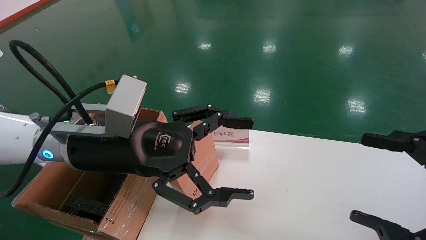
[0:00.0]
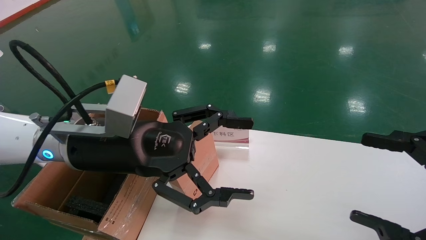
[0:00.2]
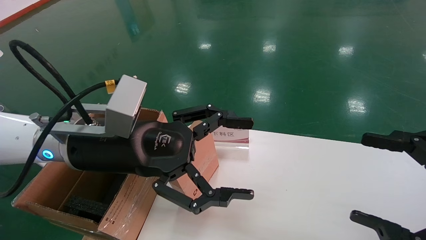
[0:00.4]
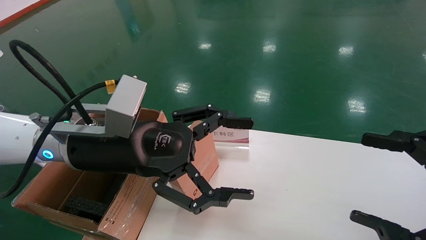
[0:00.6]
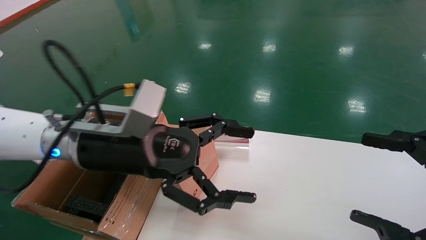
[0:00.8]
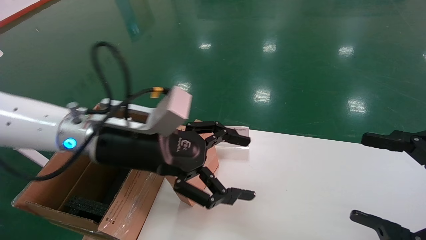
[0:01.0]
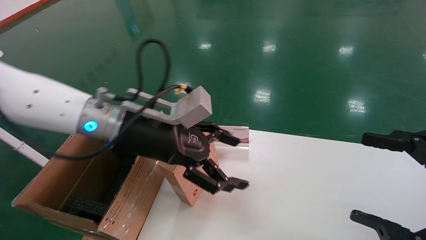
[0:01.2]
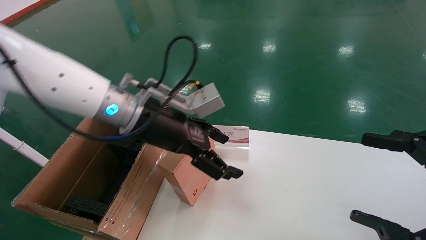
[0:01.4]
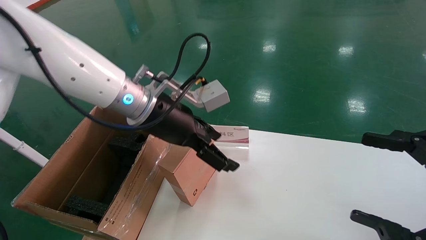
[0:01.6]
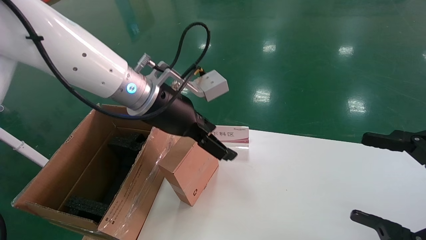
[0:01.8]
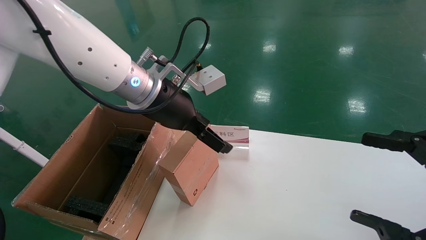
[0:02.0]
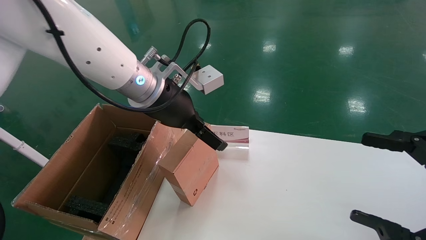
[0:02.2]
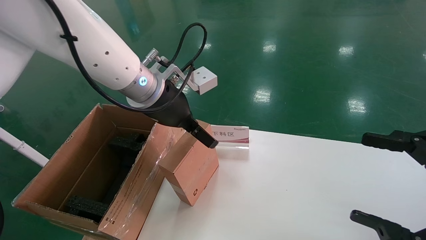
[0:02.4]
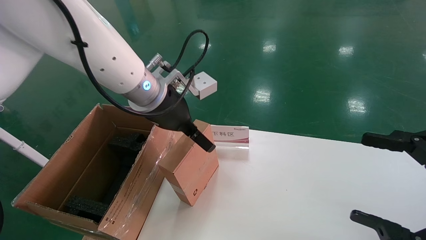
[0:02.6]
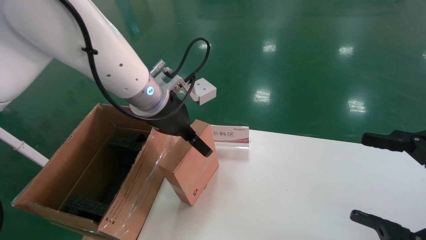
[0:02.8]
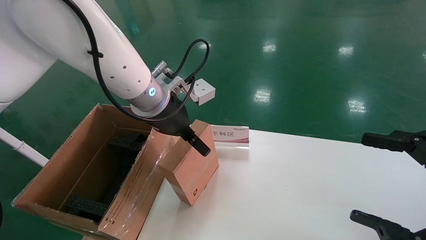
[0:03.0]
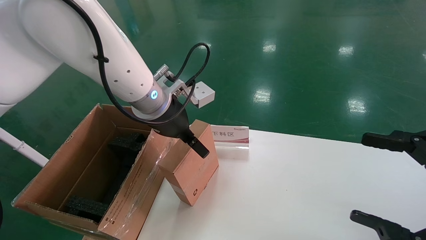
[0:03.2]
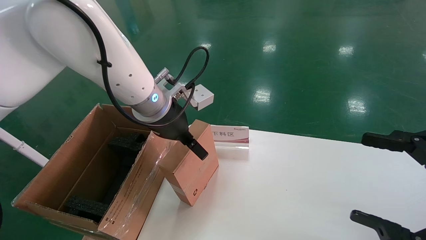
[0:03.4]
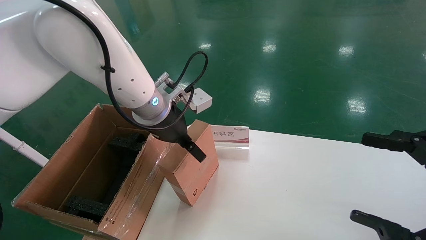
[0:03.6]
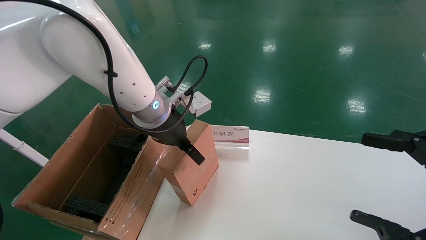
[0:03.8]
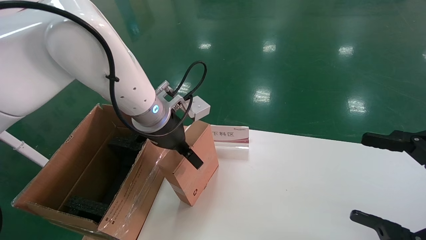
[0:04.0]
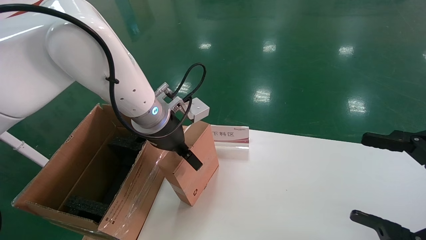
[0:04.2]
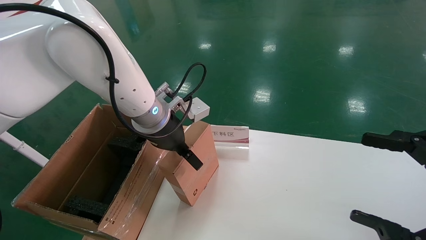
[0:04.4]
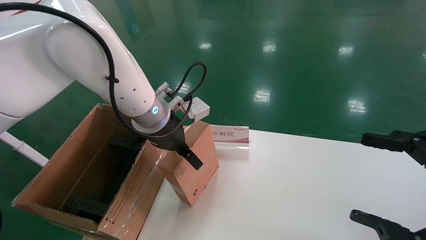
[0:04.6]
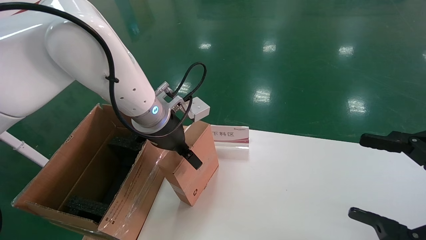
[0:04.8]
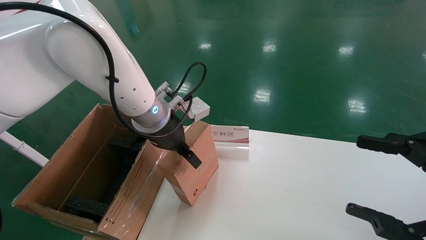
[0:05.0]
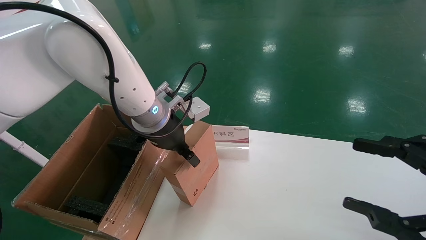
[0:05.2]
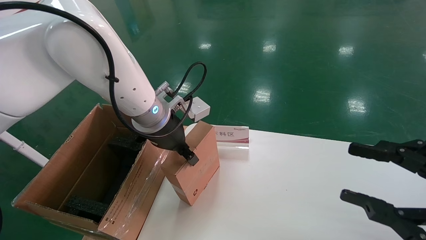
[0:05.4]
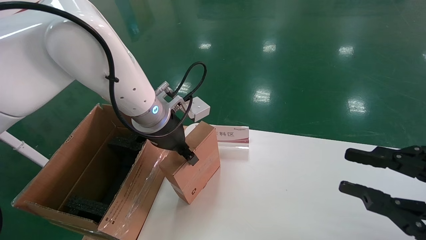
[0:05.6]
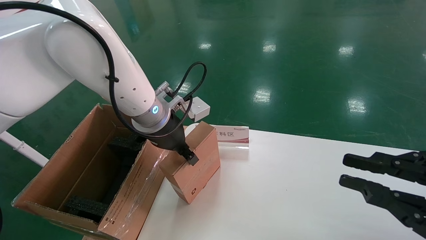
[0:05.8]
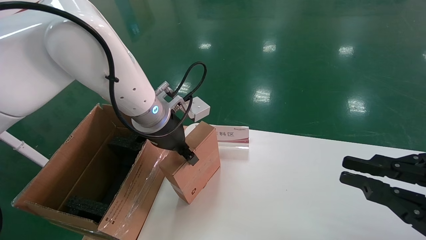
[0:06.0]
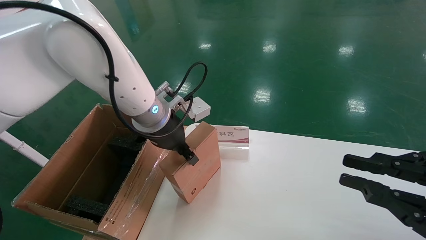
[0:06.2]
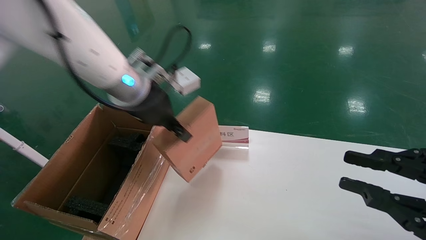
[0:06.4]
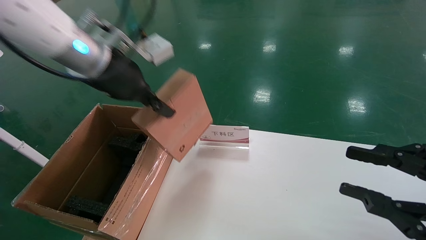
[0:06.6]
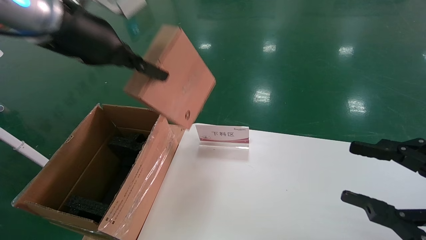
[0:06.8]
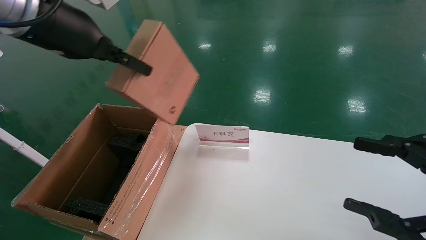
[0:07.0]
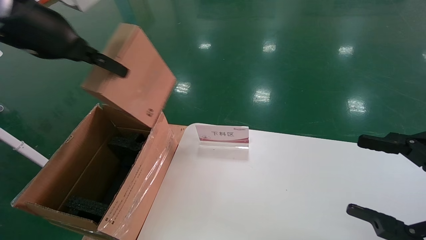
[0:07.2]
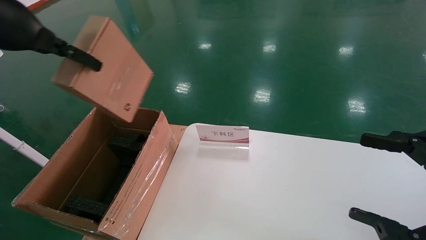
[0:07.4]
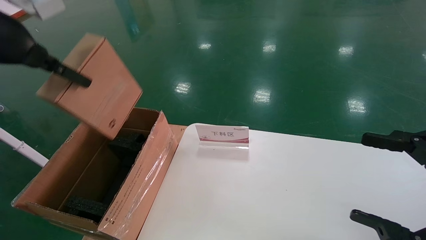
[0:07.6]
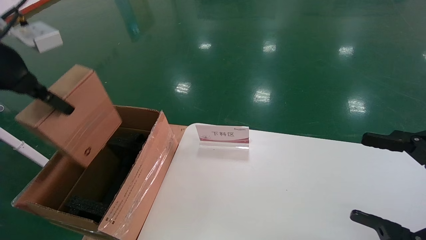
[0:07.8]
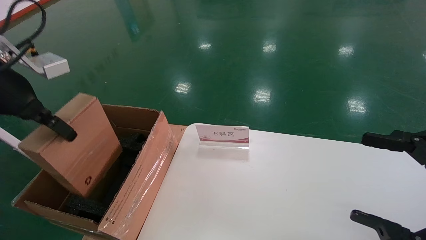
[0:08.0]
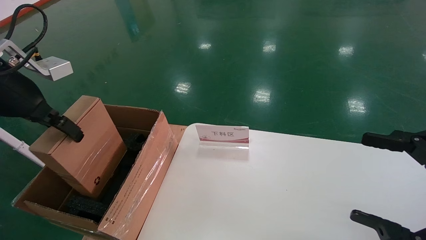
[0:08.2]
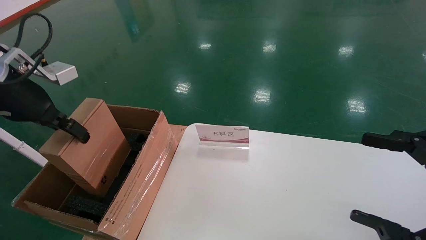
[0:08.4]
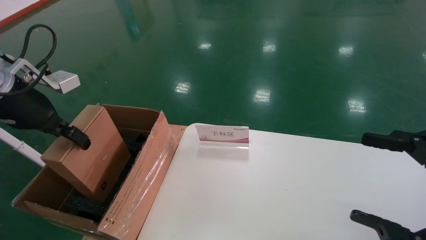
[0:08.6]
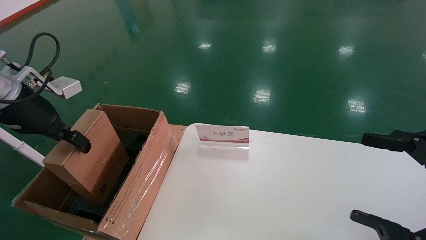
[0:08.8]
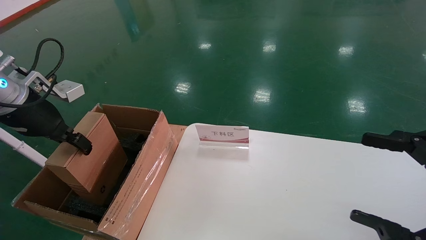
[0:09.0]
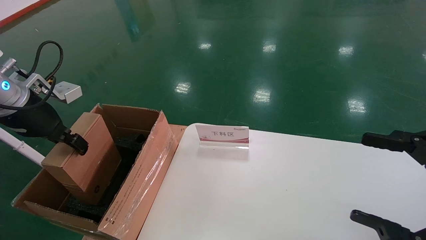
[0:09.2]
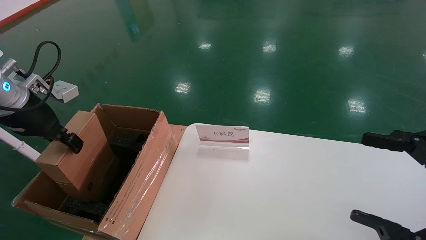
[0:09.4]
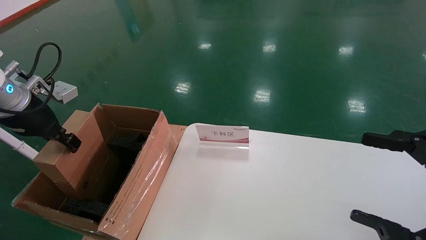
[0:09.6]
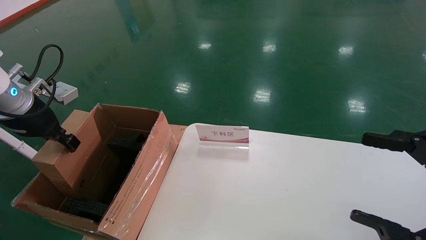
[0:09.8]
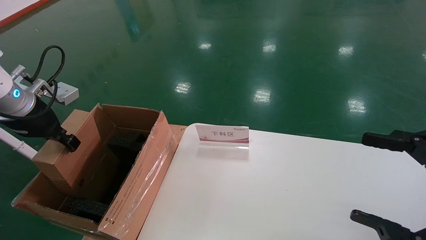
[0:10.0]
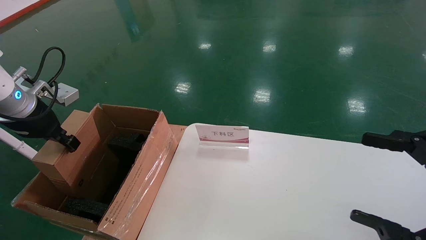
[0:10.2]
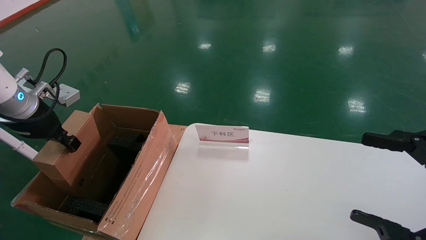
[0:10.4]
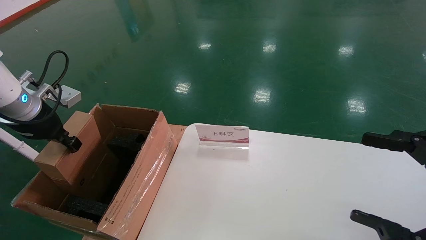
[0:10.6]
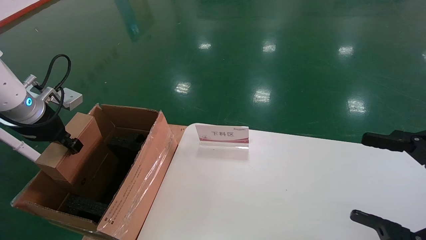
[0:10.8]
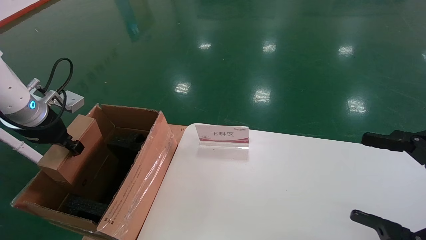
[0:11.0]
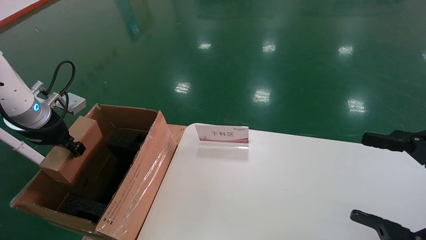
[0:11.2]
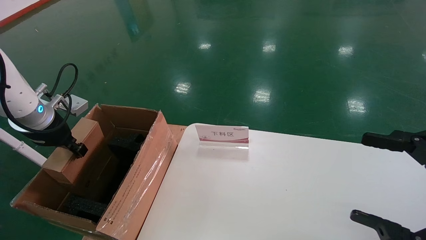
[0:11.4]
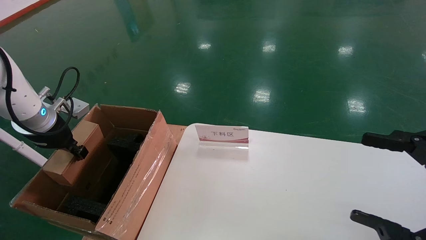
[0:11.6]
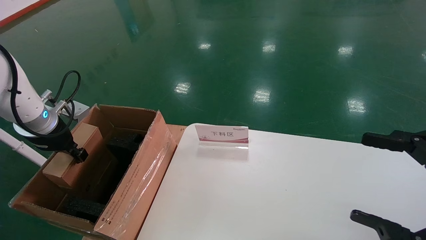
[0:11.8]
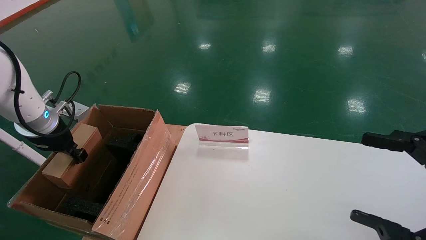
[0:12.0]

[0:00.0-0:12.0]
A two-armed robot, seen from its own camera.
Task of the whole recording: pick up the small cardboard box and load it into the large cardboard box.
Step, 0:01.0 to 0:06.0: Pick up the mouse and power cord box.
0:00.0 to 0:01.6: The left gripper is displaced forward by about 10 cm.
0:03.0 to 0:04.4: The grippers move only a little.
0:04.4 to 0:06.0: The left gripper closes, while the right gripper closes its fingers.
0:06.0 to 0:07.6: The left gripper travels to the left, upward and backward by about 30 cm, while the right gripper opens its fingers.
0:07.6 to 0:09.0: The left gripper shifts some 10 cm downward.
0:09.0 to 0:10.4: The grippers make only small movements.
0:10.4 to 0:12.0: The left gripper is displaced downward by roughly 5 cm.

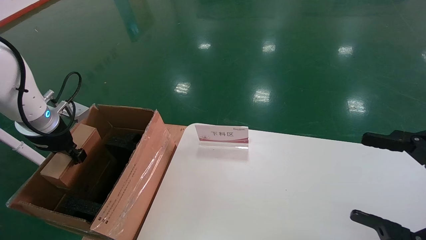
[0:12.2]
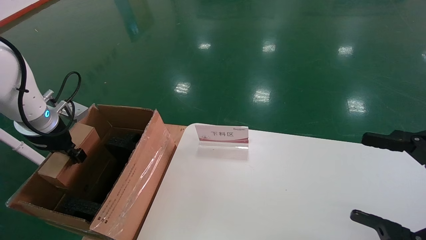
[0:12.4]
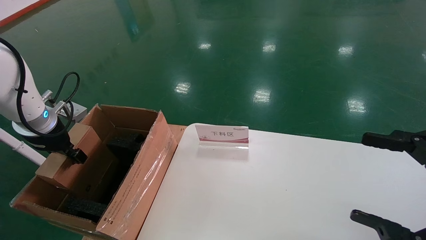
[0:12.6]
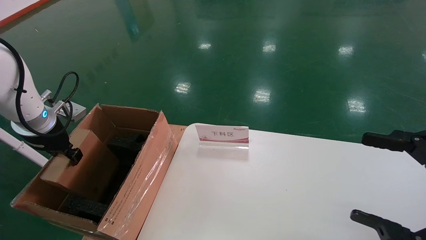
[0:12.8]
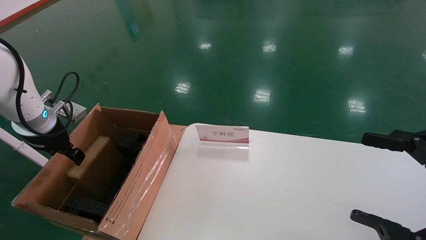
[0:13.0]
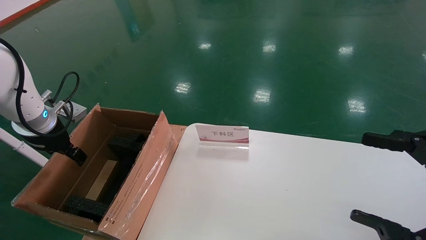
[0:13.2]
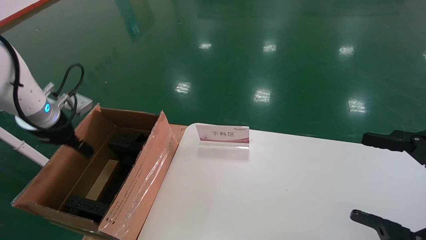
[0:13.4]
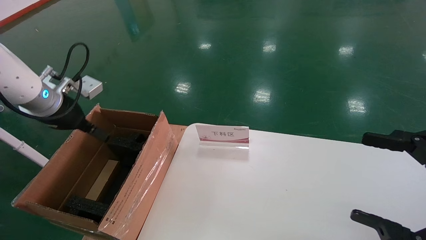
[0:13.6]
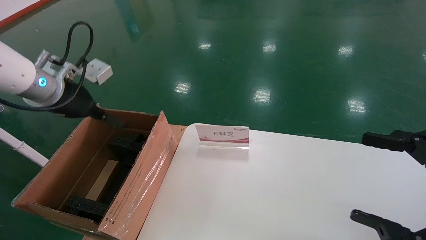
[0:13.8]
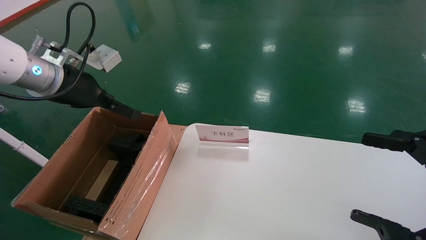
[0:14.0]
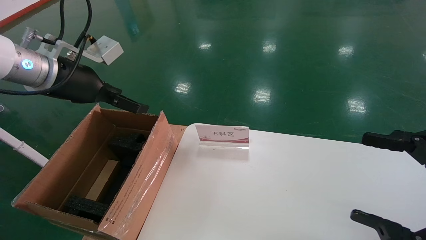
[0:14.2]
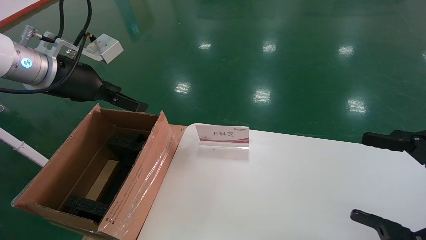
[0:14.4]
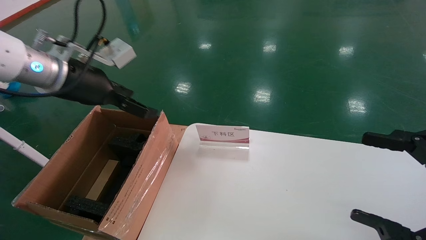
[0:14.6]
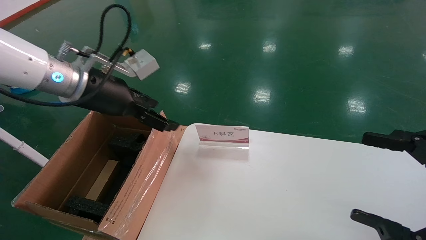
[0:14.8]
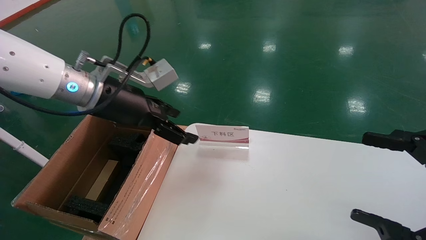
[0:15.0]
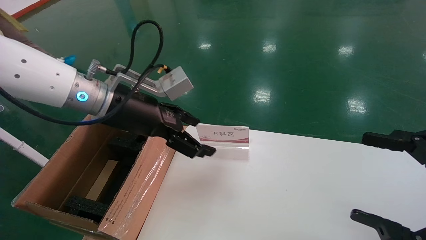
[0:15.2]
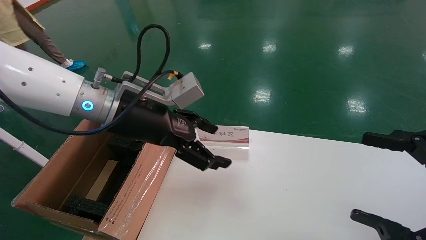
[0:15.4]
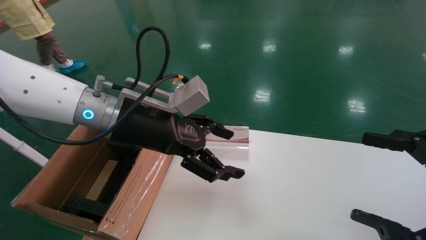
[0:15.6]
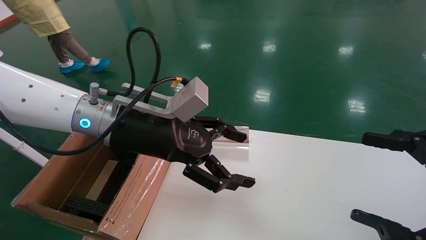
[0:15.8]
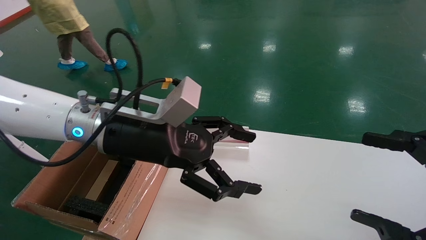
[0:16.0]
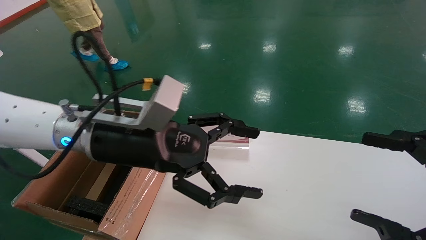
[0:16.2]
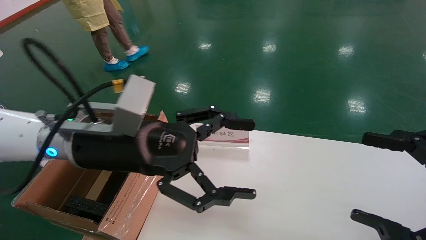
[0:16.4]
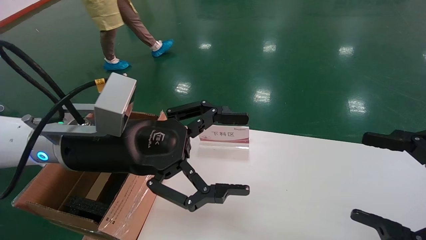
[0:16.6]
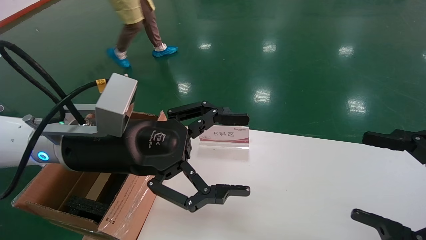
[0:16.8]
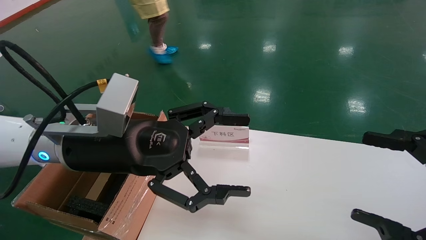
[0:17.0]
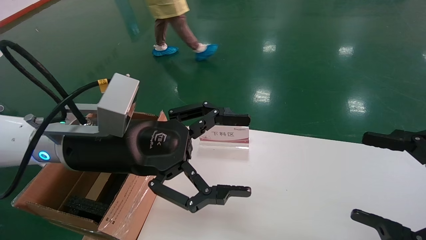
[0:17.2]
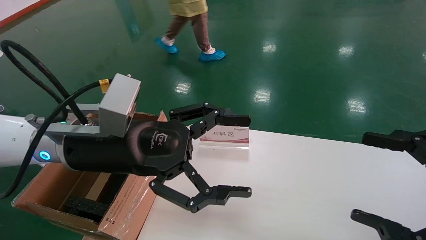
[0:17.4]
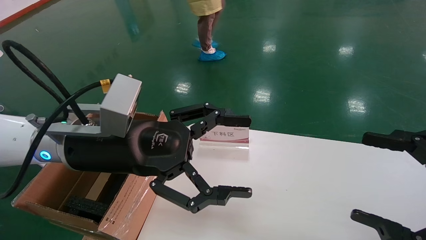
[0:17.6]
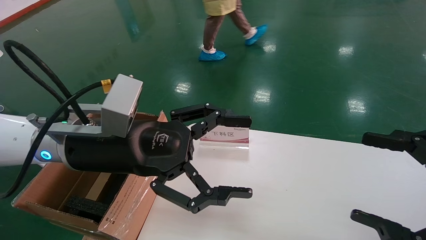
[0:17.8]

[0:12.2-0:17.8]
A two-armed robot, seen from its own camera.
Task of the whole recording: pick up the small cardboard box and load it into the large cardboard box.
0:12.2 to 0:13.6: The left gripper is displaced upward by approximately 5 cm, and opens.
0:13.6 to 0:15.0: The left gripper moves to the right, about 15 cm.
0:15.0 to 0:16.4: The left gripper heads backward, covering approximately 5 cm.
0:16.4 to 0:17.8: The two grippers keep their place.
